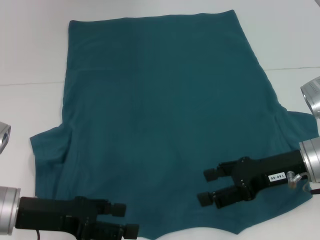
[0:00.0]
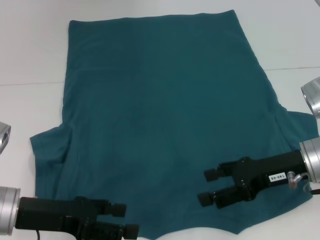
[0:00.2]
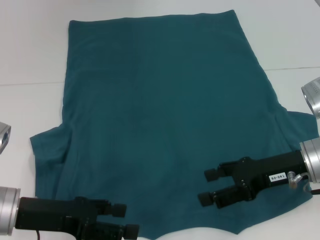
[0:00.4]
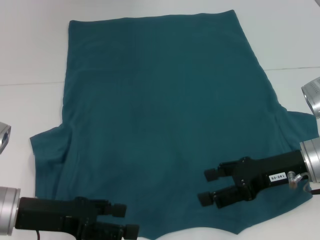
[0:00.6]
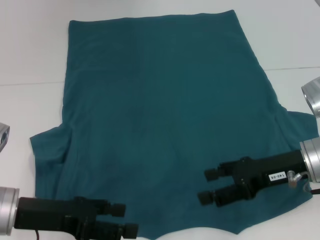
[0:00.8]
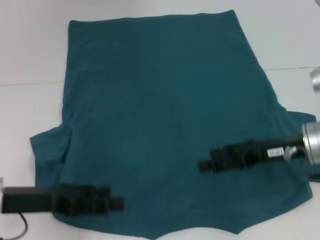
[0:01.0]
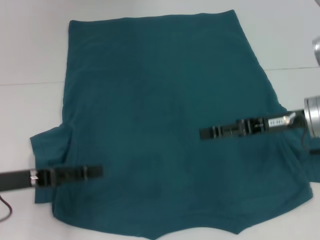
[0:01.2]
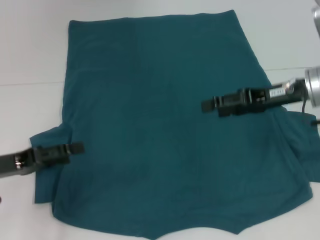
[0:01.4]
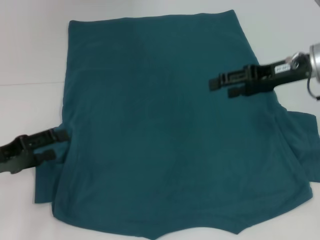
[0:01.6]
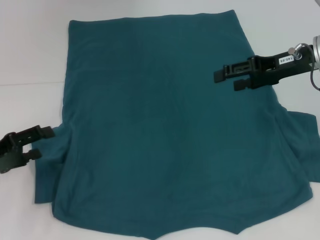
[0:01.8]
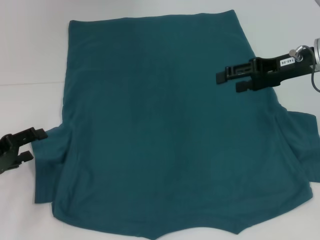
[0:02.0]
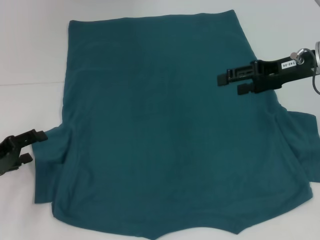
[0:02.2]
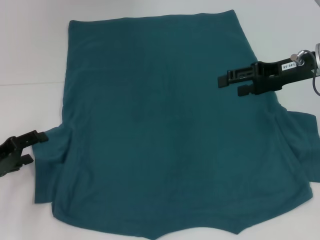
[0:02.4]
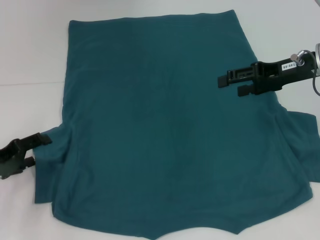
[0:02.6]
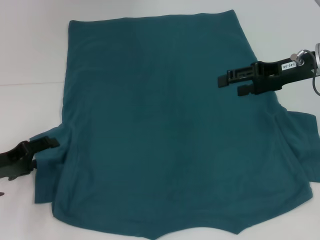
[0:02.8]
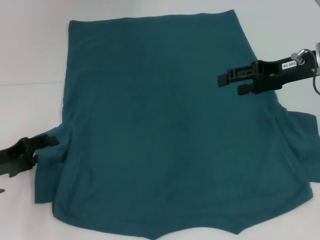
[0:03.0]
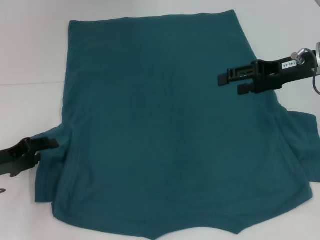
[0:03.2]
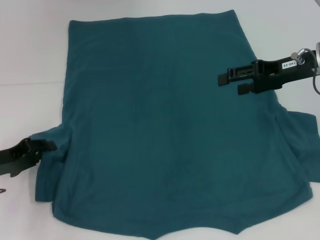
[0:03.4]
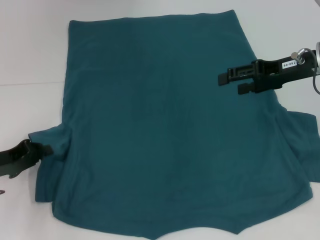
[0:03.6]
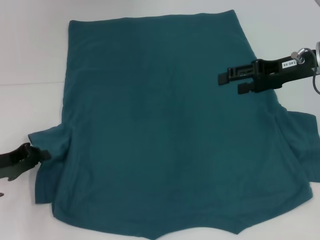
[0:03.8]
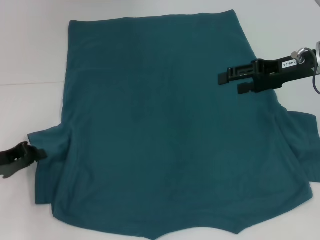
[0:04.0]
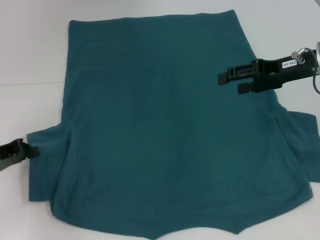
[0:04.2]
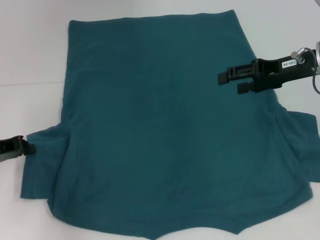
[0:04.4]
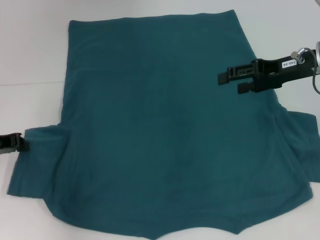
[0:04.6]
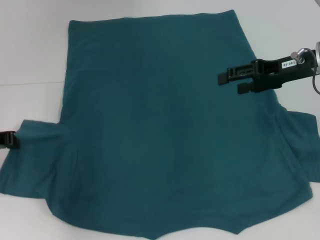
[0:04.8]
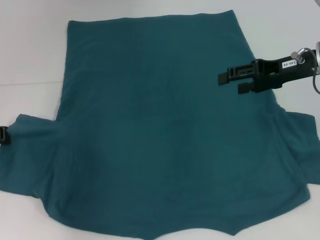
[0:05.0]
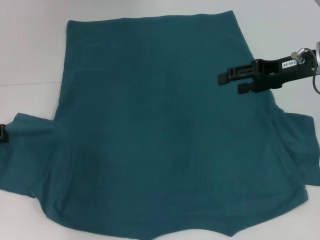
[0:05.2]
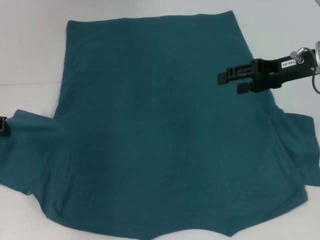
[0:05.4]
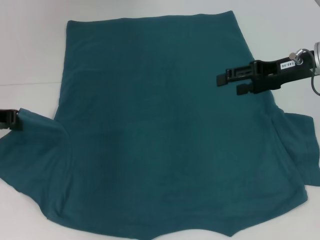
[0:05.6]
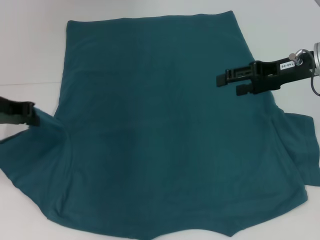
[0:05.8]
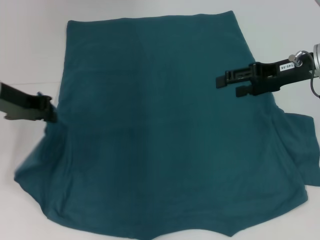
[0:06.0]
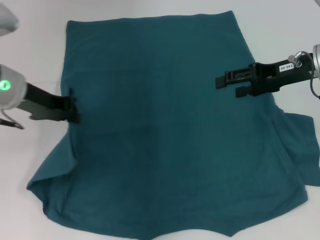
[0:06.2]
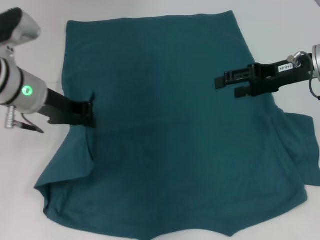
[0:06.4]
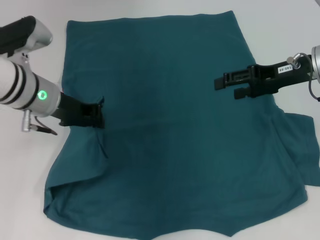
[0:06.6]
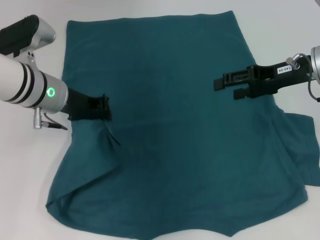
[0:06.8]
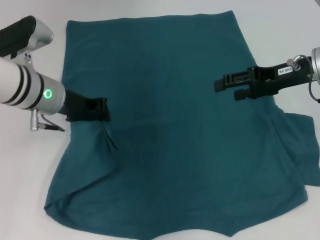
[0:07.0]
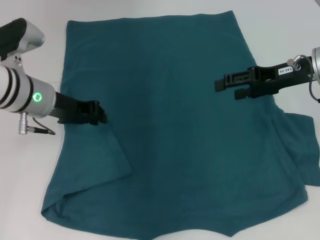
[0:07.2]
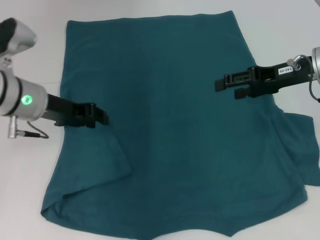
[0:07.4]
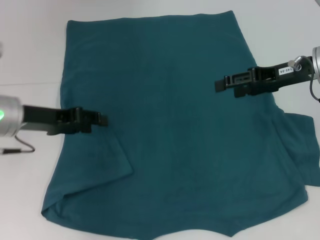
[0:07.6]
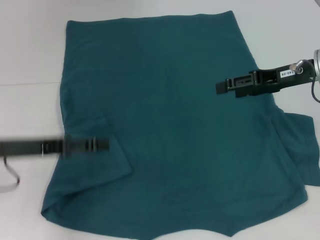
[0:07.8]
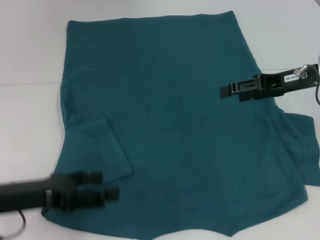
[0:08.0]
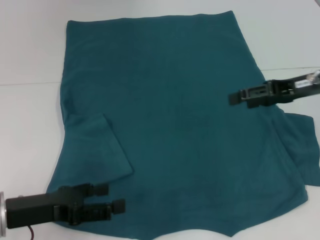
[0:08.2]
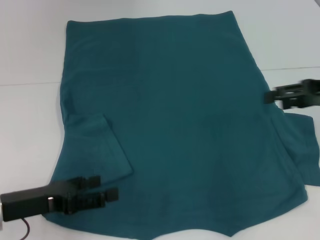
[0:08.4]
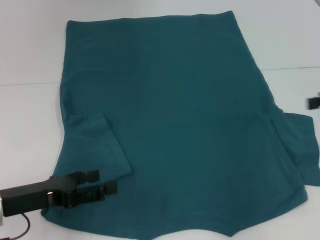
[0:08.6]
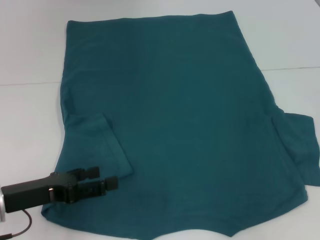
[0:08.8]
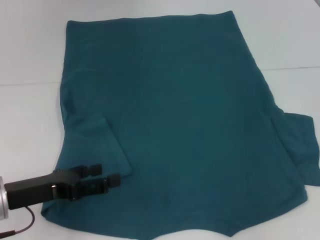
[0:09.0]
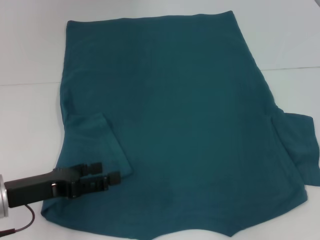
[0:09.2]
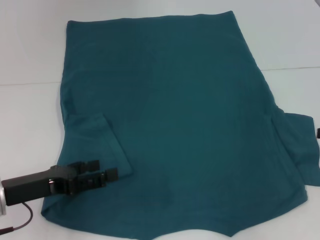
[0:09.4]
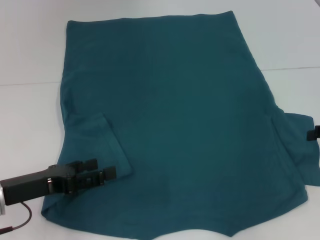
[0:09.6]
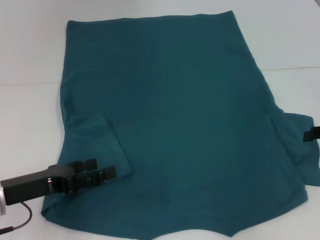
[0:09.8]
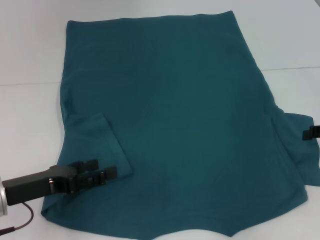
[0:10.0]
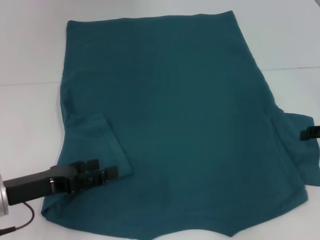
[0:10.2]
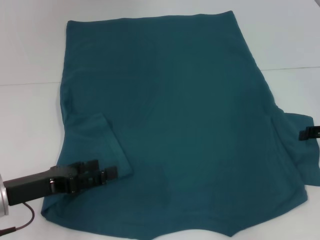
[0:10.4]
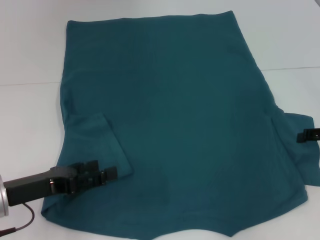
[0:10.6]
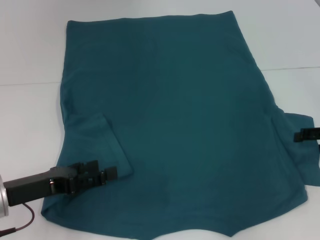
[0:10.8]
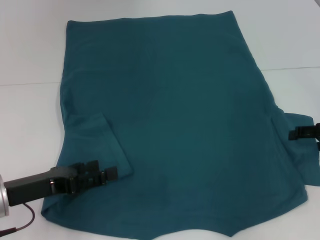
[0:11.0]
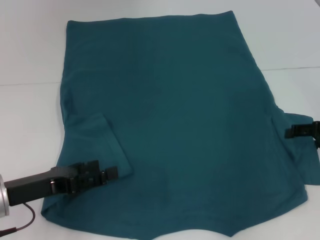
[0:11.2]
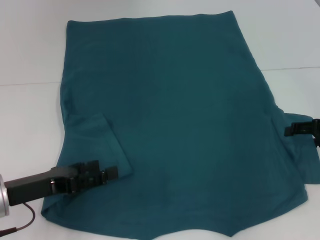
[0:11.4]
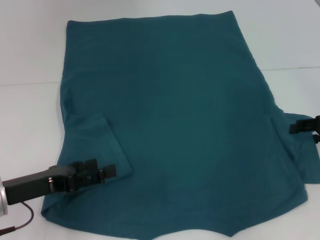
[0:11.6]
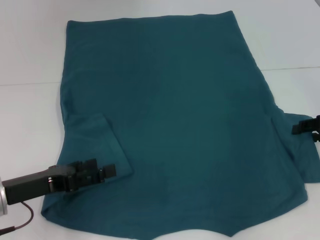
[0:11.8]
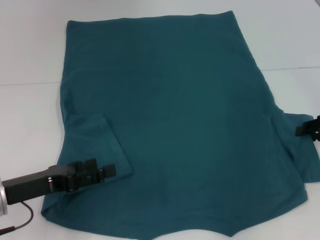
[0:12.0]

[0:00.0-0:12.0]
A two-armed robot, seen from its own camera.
Step, 0:00.0 to 0:07.2: Fold the bottom left sleeve with your left hand.
0:00.0 to 0:01.6: The right gripper shifts roughly 15 cm forward and upward. The left gripper moves to the left, approximately 10 cm.
0:01.6 to 0:03.0: The grippers make only small movements.
0:03.0 to 0:04.4: The left gripper closes up.
0:04.4 to 0:06.0: The left gripper travels upward and to the right by approximately 15 cm.
0:06.0 to 0:07.6: The left gripper opens its fingers.
0:07.6 to 0:09.0: The left gripper moves backward and downward, some 10 cm, and opens its fingers; the right gripper moves to the right and backward, approximately 20 cm.
0:10.4 to 0:12.0: The grippers make only small movements.

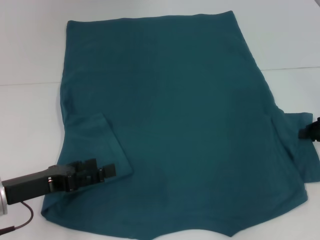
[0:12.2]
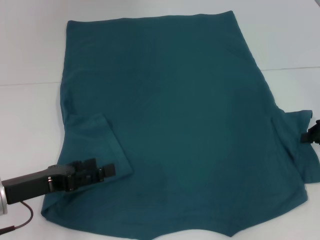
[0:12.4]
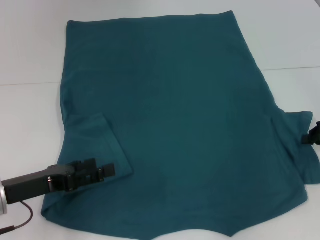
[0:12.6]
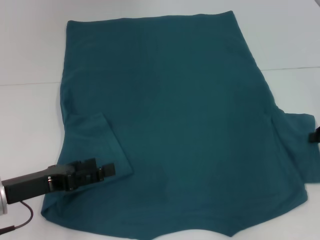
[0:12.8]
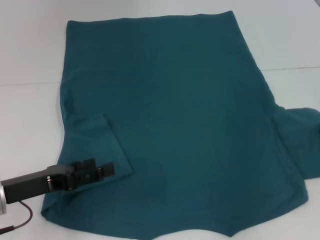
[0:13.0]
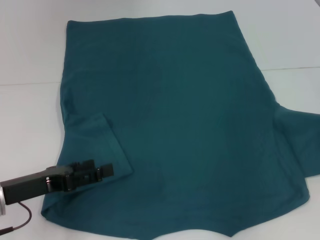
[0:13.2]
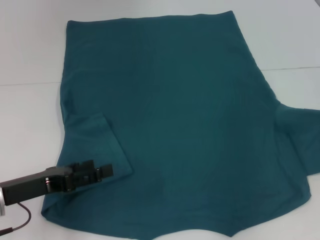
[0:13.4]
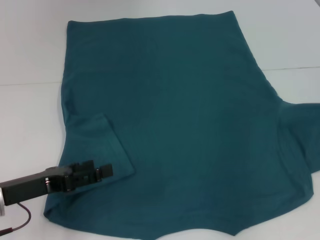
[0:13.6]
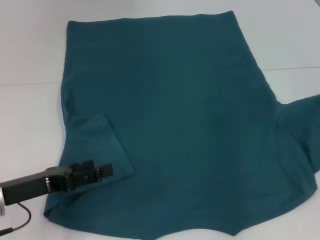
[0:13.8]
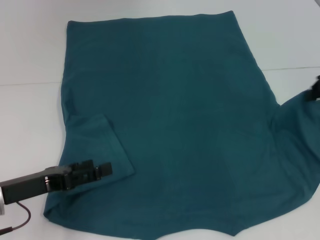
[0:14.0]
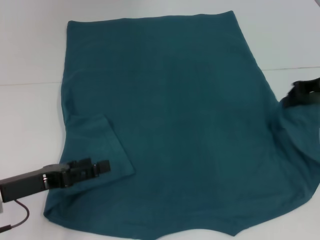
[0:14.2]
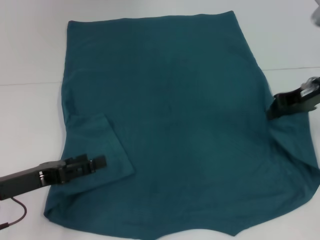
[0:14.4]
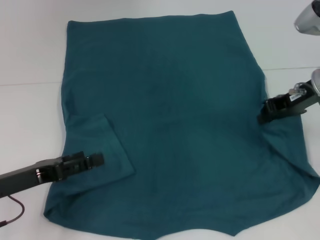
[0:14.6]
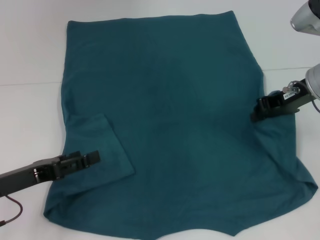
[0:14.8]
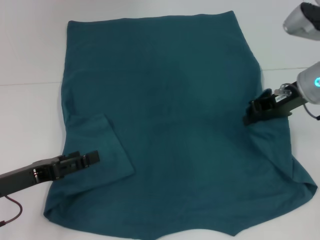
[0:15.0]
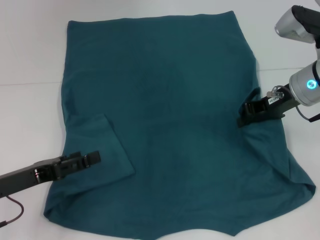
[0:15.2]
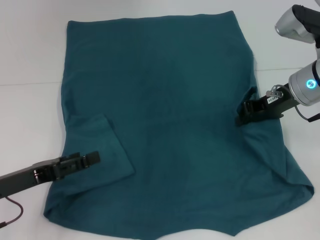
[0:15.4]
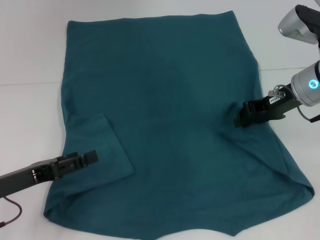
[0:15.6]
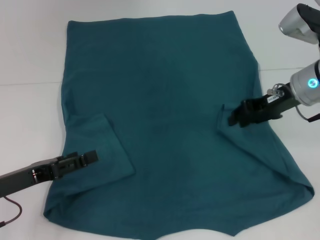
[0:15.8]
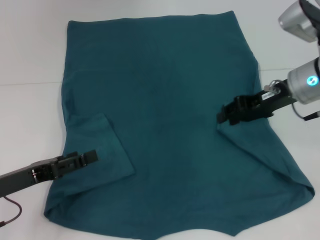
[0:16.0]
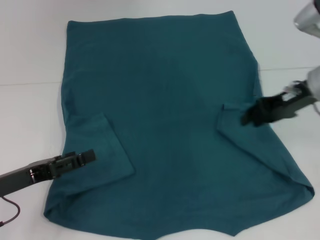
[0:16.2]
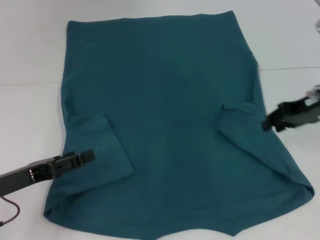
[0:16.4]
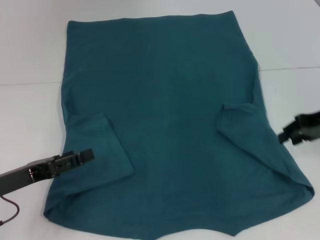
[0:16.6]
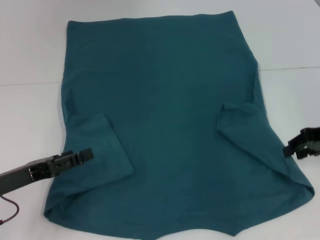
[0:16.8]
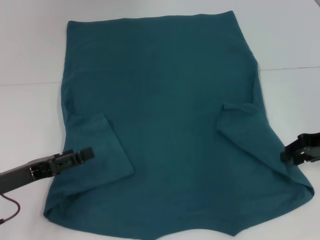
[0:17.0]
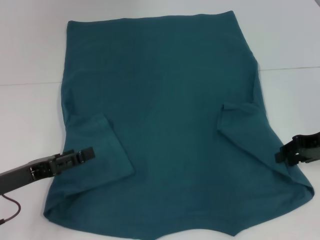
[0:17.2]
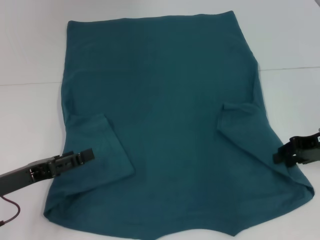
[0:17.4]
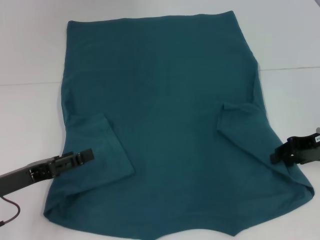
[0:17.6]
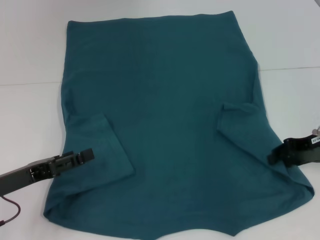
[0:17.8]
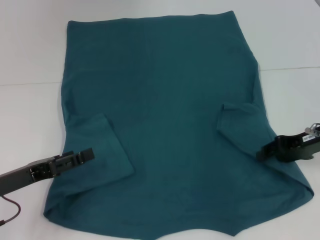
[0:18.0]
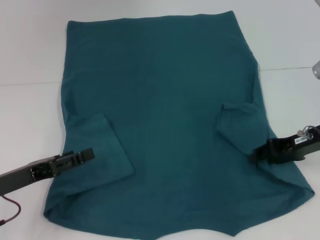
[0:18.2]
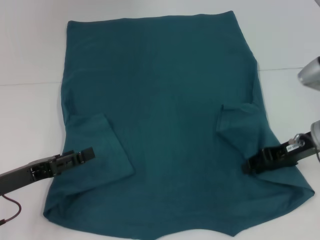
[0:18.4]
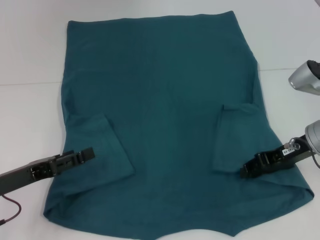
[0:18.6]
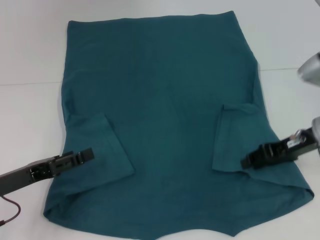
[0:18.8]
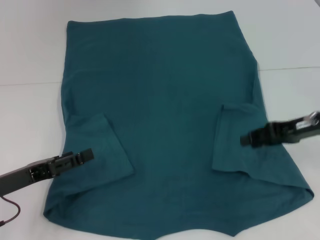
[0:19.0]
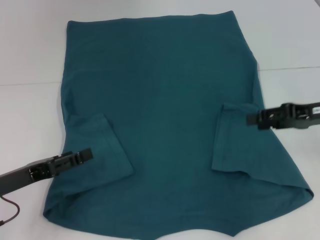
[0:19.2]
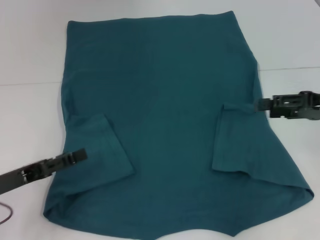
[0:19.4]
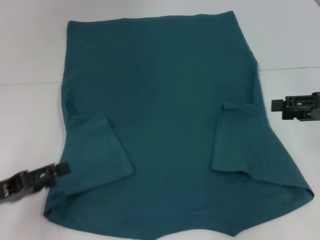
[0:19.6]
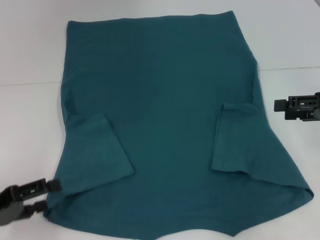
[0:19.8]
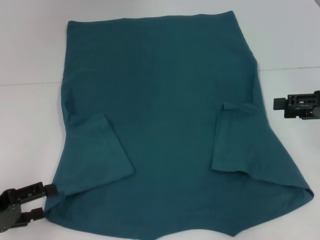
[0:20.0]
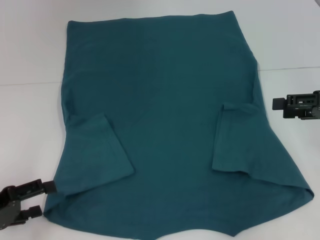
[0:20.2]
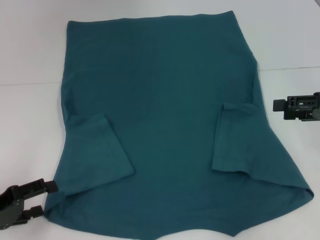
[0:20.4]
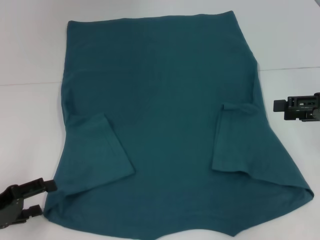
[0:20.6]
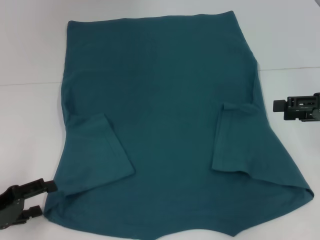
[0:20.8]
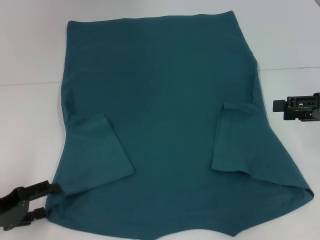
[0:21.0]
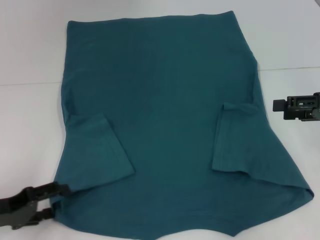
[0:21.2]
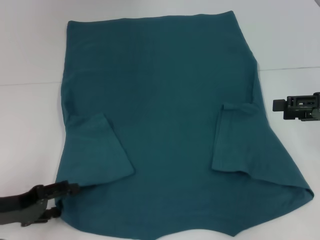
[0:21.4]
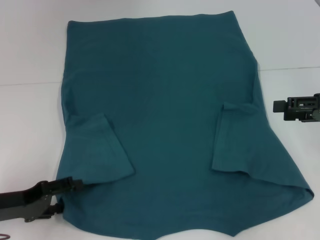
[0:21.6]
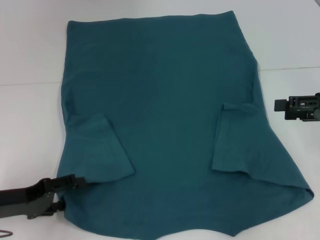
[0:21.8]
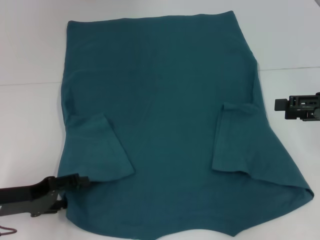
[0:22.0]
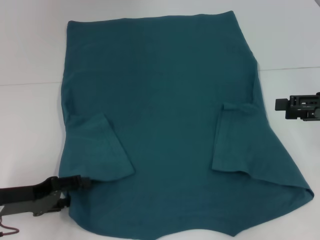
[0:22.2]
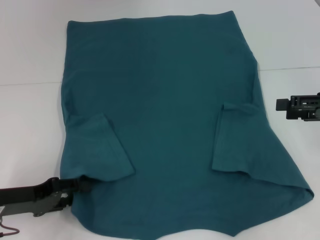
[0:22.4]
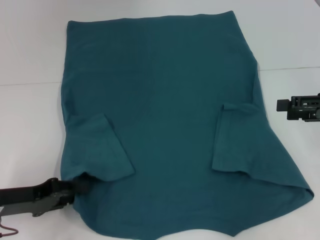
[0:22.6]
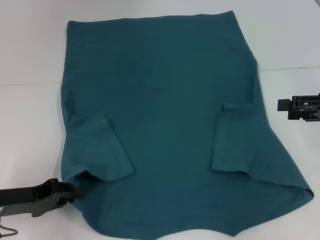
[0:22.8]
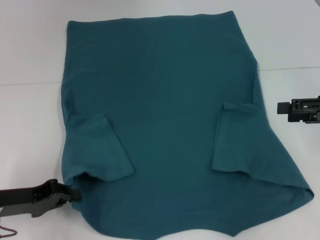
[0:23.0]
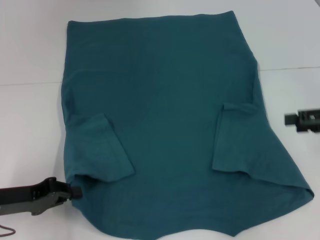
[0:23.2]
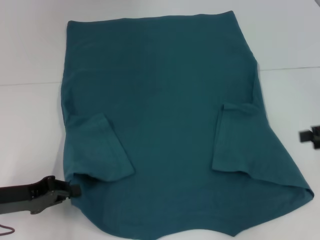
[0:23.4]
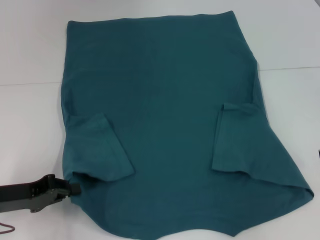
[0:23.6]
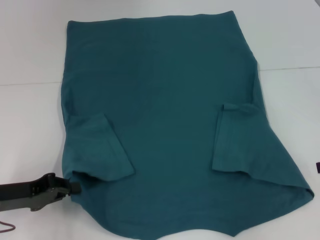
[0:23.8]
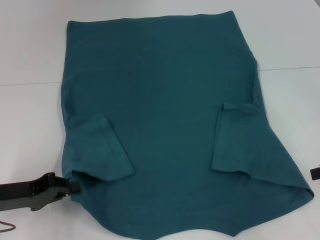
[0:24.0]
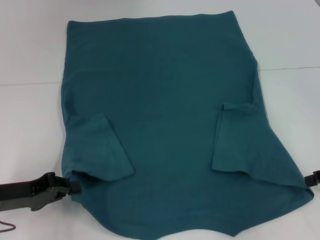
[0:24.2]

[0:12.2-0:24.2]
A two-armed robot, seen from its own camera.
Step, 0:12.2 to 0:19.4: Fold the bottom right sleeve to the right.
Step, 0:19.6 to 0:23.4: Grab the bottom left corner with your left hand.
0:12.2 to 0:13.8: The right gripper is displaced upward by roughly 5 cm, and closes up.
0:13.8 to 0:15.2: The right gripper goes approximately 15 cm to the left.
0:15.2 to 0:16.6: The right gripper heads to the right, covering approximately 10 cm, and opens its fingers.
0:16.6 to 0:18.2: The right gripper changes place by about 5 cm.
0:18.2 to 0:19.8: The left gripper moves about 5 cm, while the right gripper travels to the right by some 5 cm, and opens up.
0:19.8 to 0:21.2: The grippers move only a little.
0:21.2 to 0:22.6: The left gripper closes.
0:22.6 to 0:24.2: The left gripper closes.
